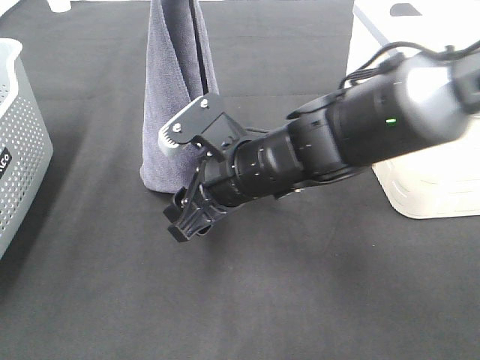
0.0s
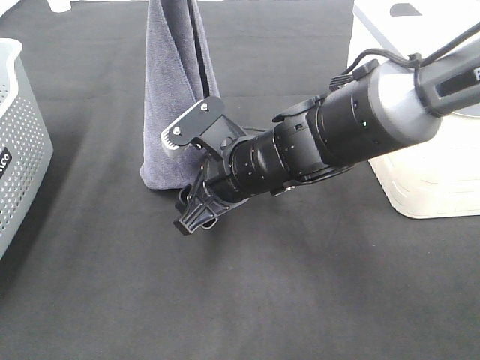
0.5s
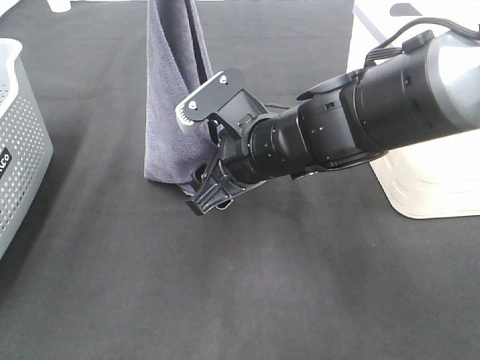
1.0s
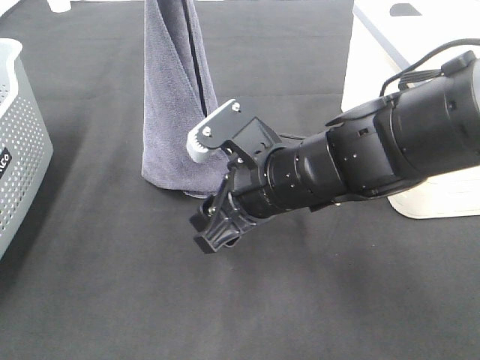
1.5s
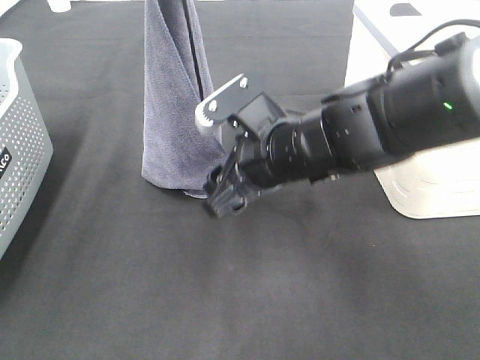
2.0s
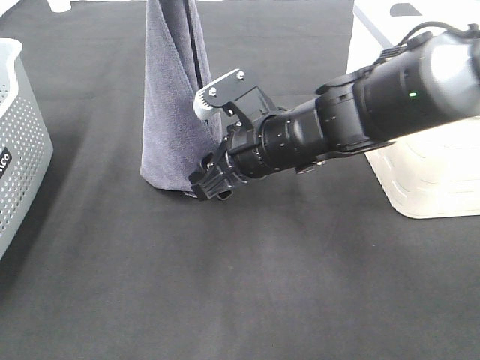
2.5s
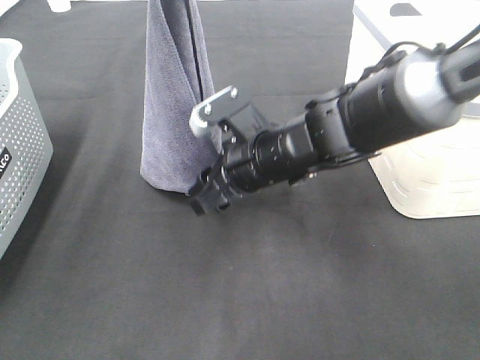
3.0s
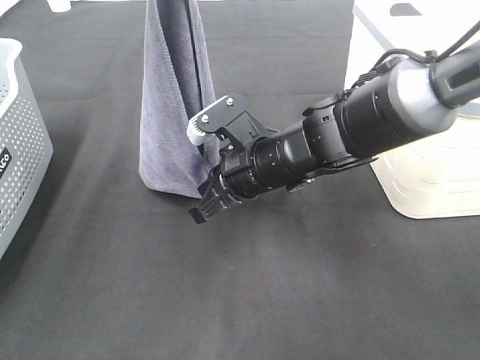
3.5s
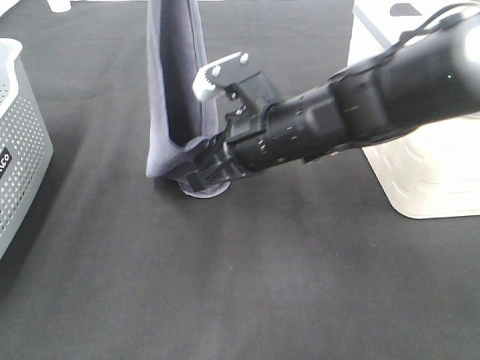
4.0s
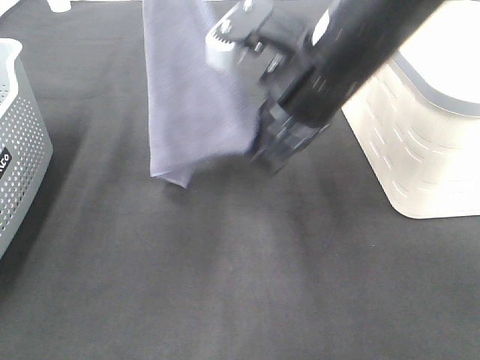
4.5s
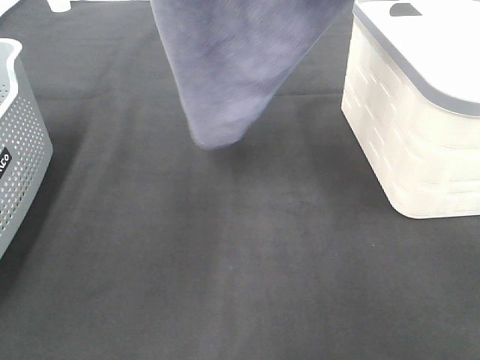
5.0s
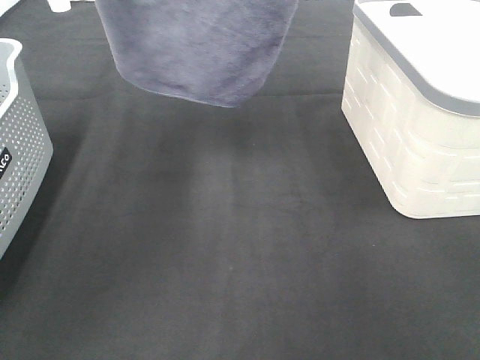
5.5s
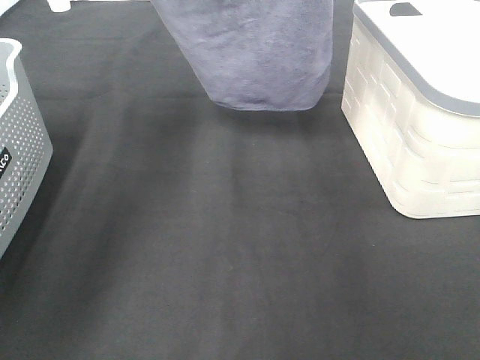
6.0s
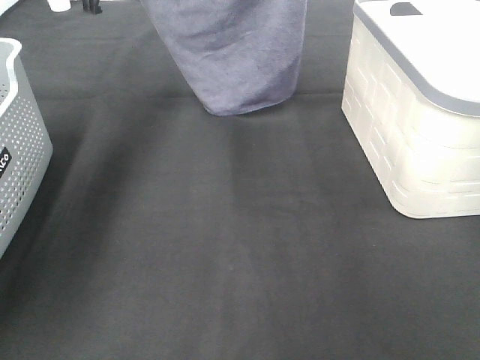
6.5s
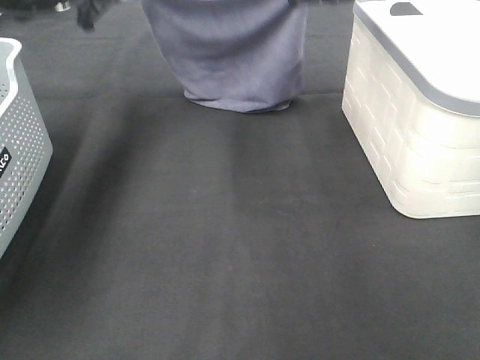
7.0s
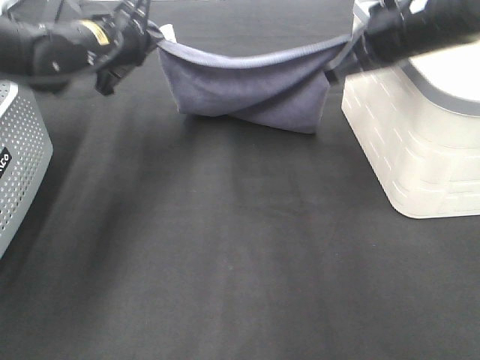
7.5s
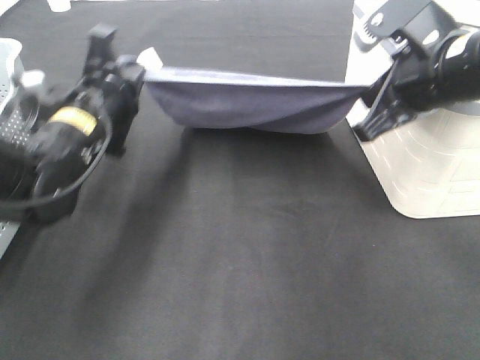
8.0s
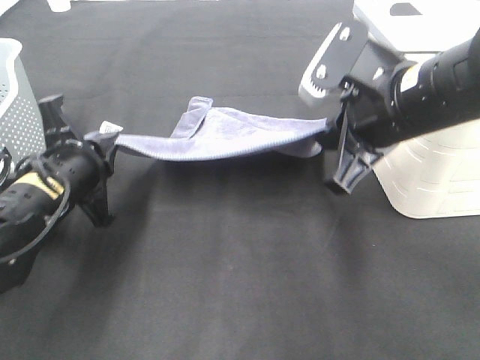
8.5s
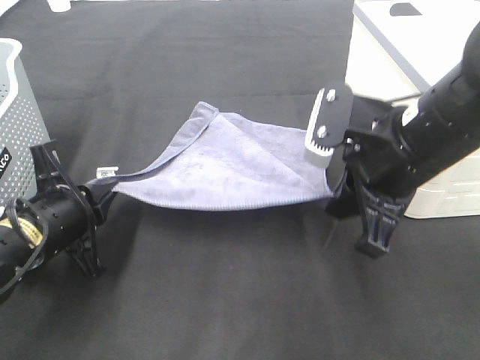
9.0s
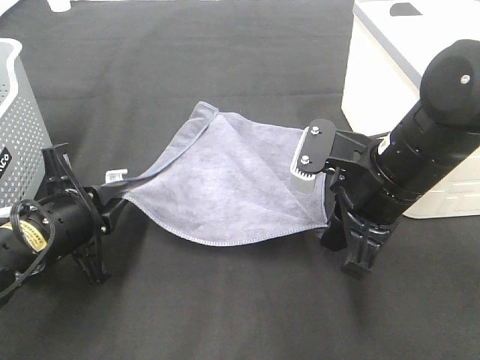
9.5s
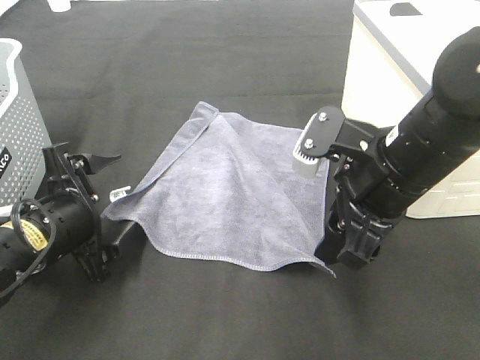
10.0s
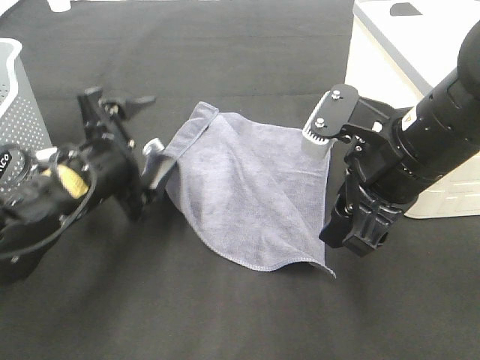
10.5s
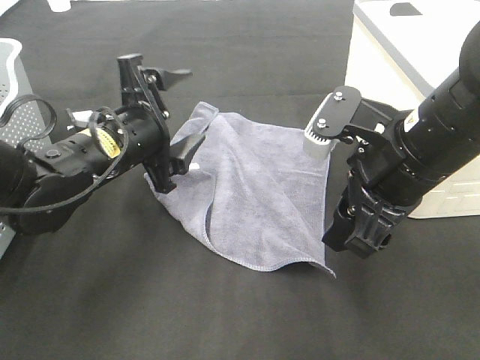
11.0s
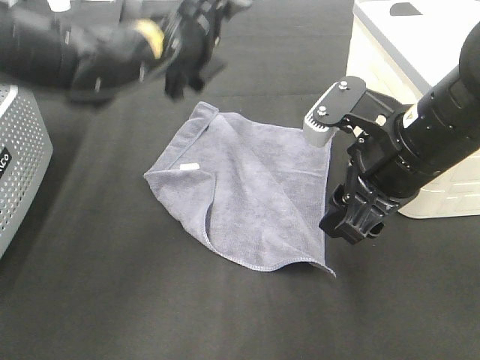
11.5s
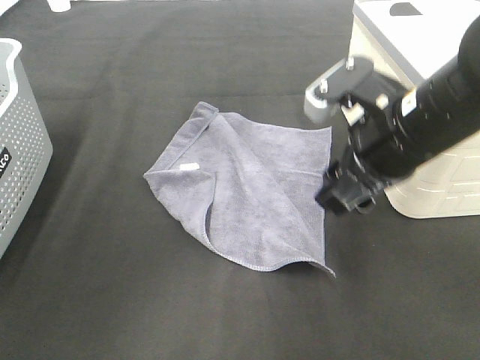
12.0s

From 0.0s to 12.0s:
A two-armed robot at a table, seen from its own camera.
Task of the whole recording: Remove the towel and place it.
Step, from 2.0s to 5.0s: Right hand: spread the grey towel flat on the table.
Step, from 2.0s to 6.0s: Left hand: spread the grey towel flat on the table.
From 0.0s to 2.0s: The grippers make only small movements.
From 2.0s to 4.0s: The right gripper closes.
From 4.0s to 6.0s: The right gripper travels upward, forward and to the right by approximately 30 cm; the left gripper travels forward and to the left by roughly 15 cm.
From 6.0s to 8.0s: Both grippers move downward and backward, about 25 cm.
From 8.0s to 10.0s: The right gripper shifts roughly 5 cm downward, and opens, while the left gripper heads backward and downward, covering about 10 cm, and opens up.
From 10.0s to 12.0s: The left gripper shifts some 30 cm upward and forward.

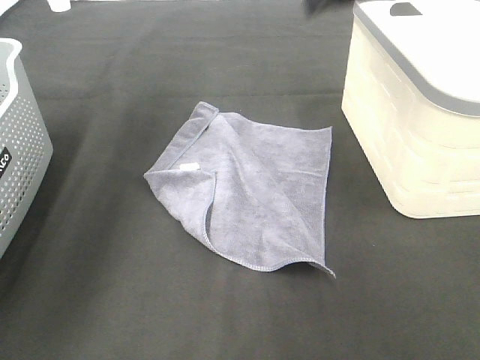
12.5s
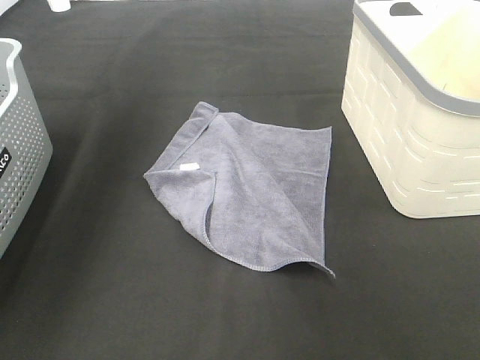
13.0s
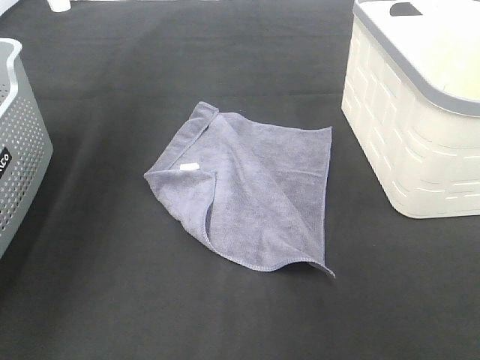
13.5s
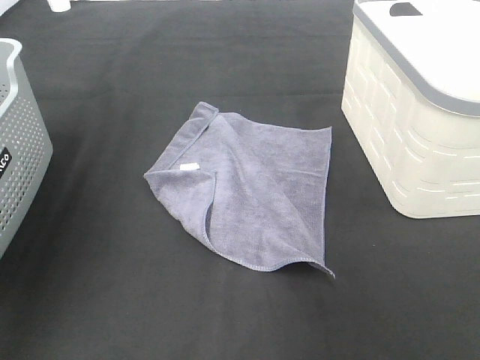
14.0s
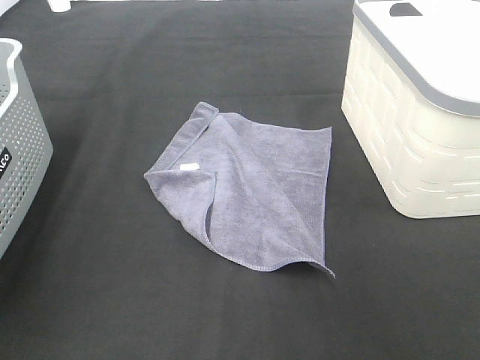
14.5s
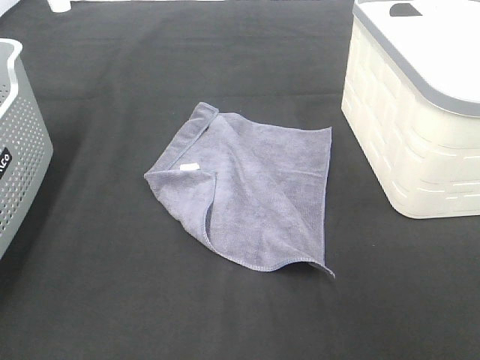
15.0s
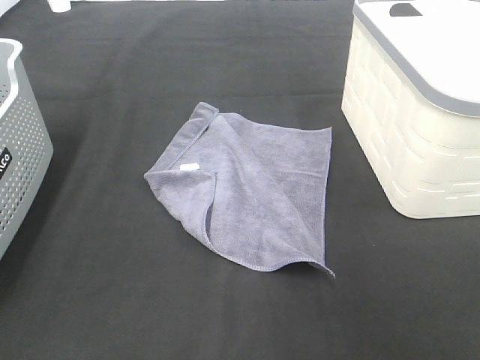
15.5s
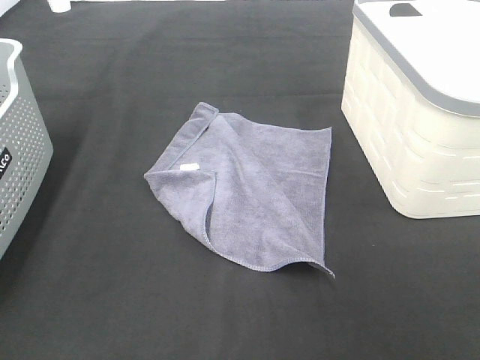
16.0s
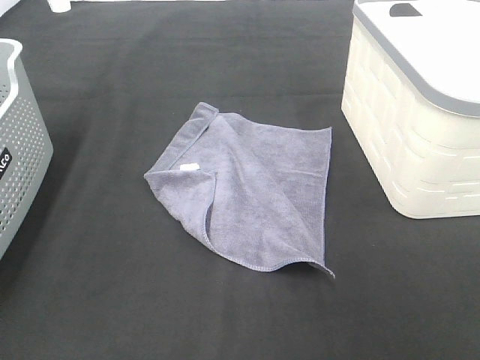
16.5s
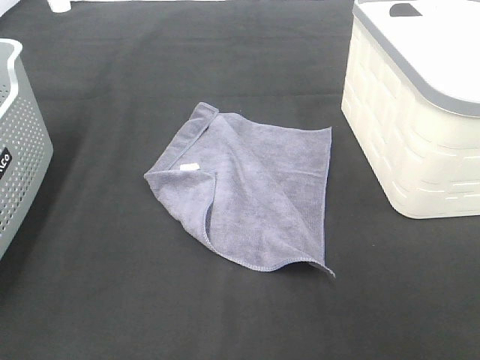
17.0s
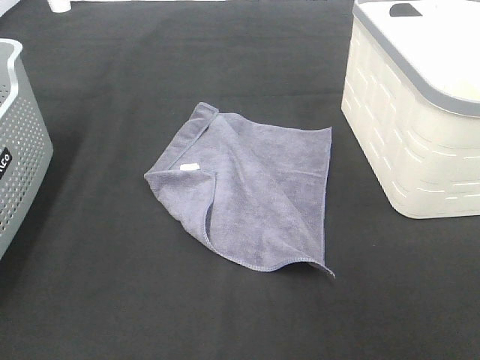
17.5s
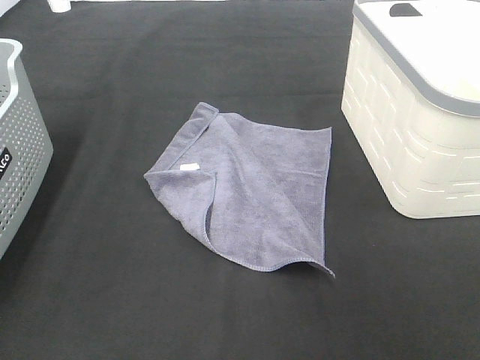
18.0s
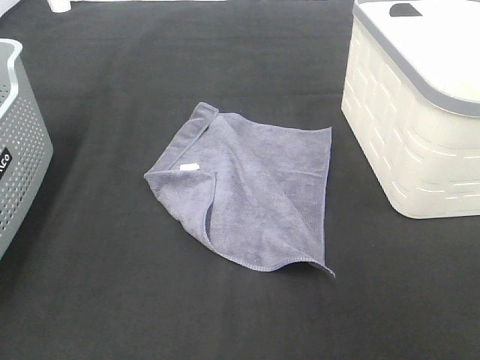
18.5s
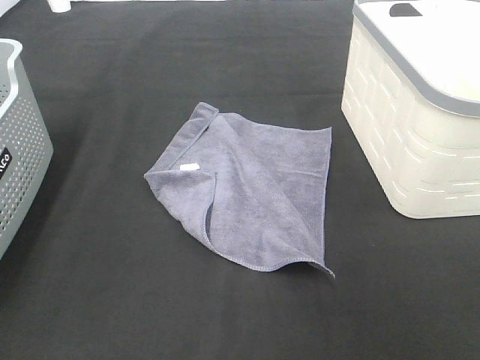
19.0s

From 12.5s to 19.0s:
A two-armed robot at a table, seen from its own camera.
Task of the whole recording: Remove the towel and place it.
From 12.5s to 14.5s: The right gripper shifts approximately 25 cm backward and to the right. Meanwhile the left gripper heads backward, covering approximately 30 cm.

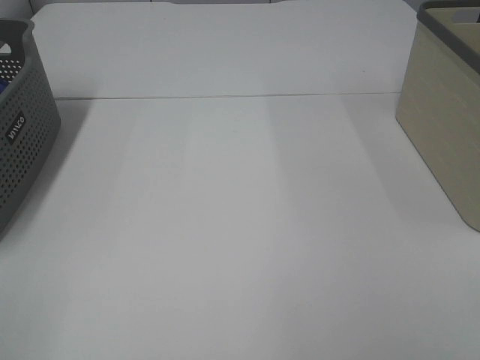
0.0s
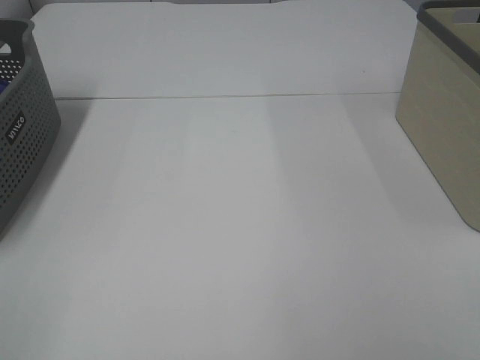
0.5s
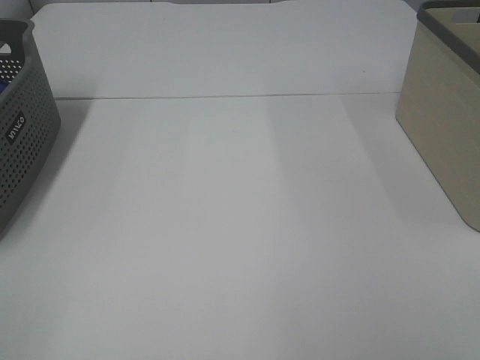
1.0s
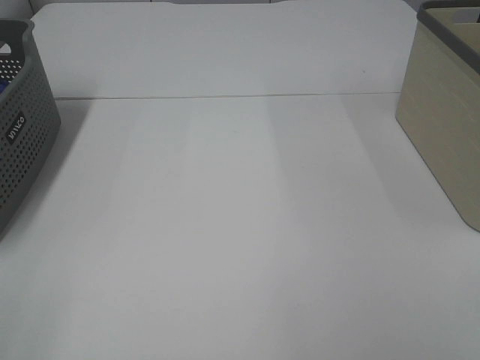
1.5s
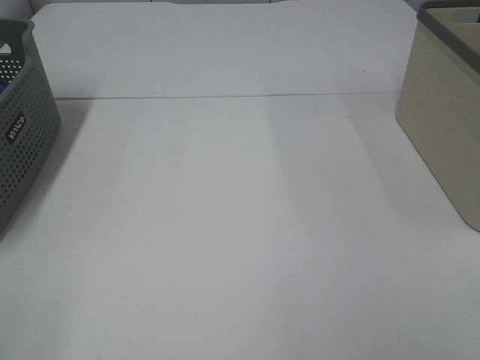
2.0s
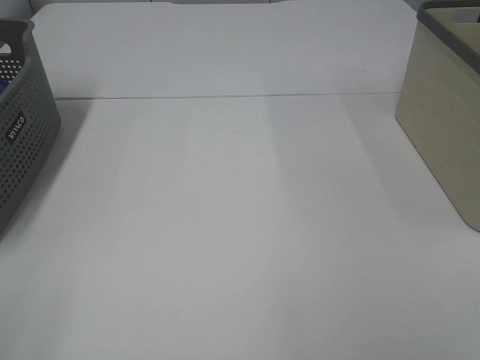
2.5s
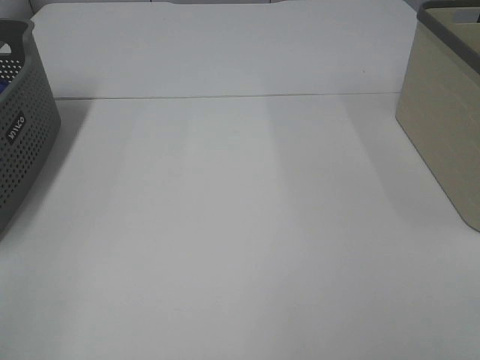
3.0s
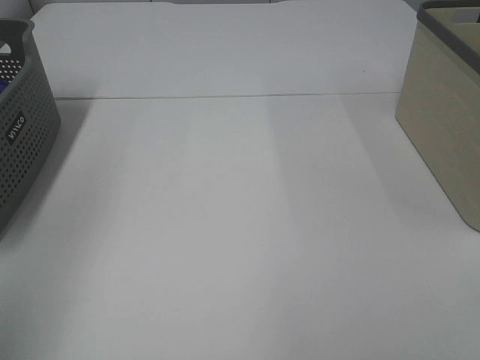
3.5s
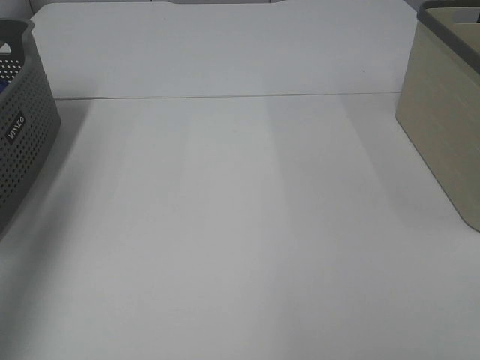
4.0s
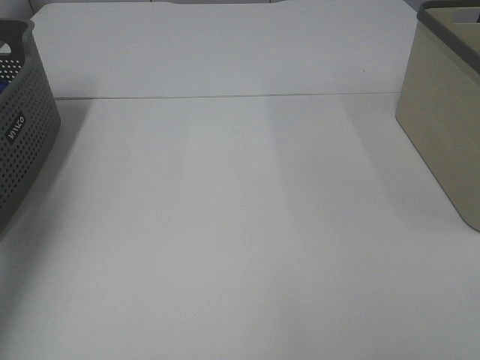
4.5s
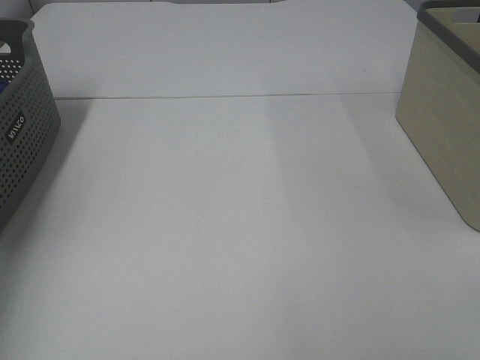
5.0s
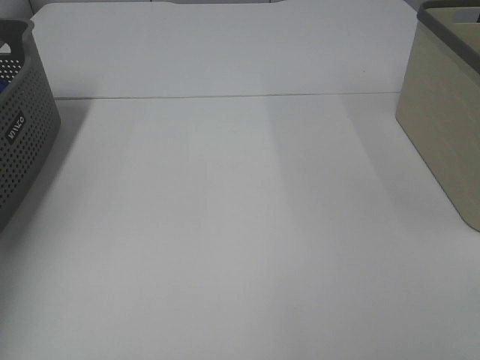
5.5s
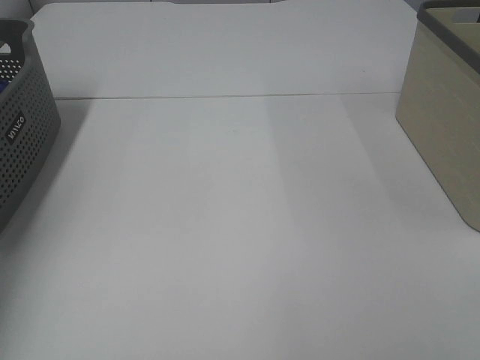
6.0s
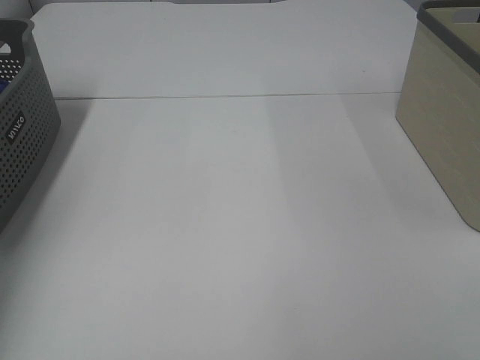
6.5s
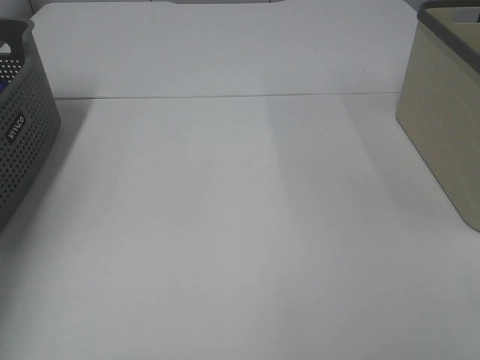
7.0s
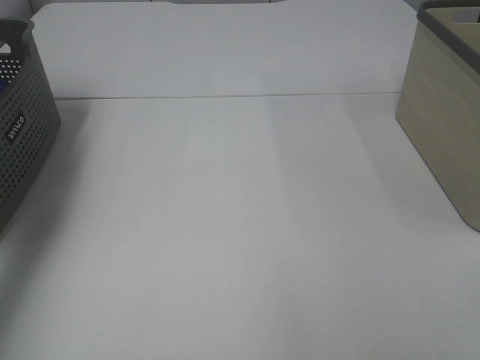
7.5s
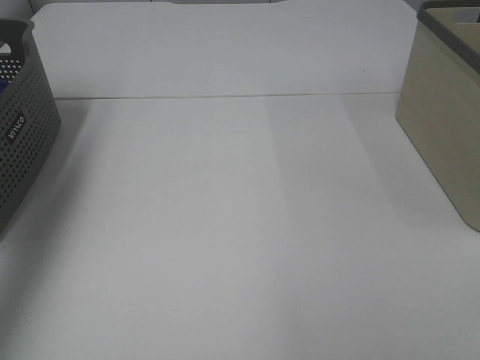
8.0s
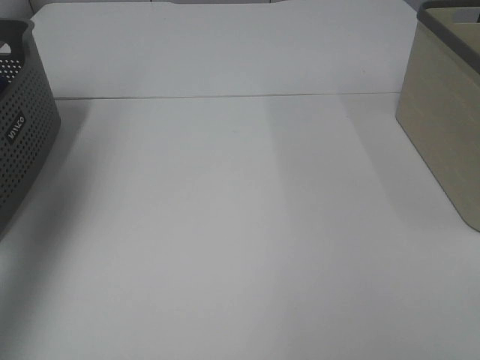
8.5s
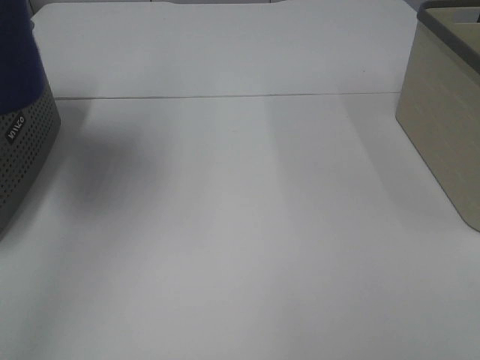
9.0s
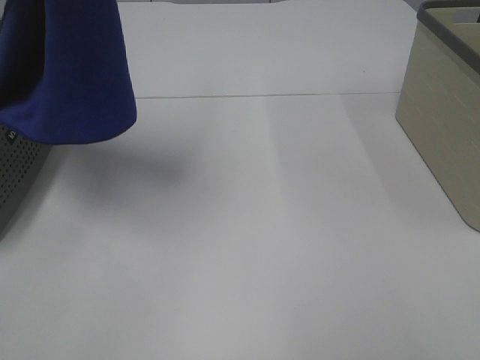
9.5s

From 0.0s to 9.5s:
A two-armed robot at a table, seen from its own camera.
Task of the whole recording: Remove the towel and place it.
From 2.0s to 4.0s: The left gripper goes approximately 25 cm forward and upward.
From 4.0s to 5.5s: The left gripper goes approximately 25 cm downward and forward.
From 5.5s to 7.5s: The left gripper travels upward by roughly 15 cm, and closes its fingers.
From 7.5s to 9.5s: The left gripper heads to the right, upward and backward, covering about 30 cm.
